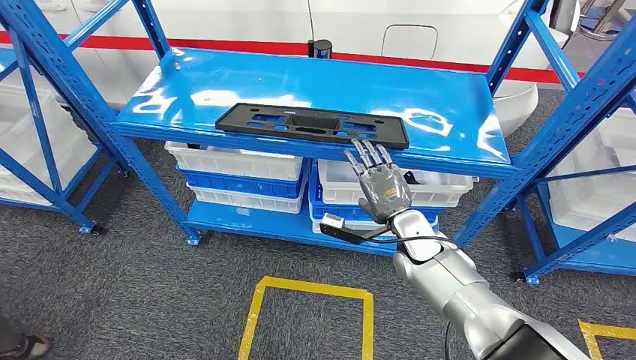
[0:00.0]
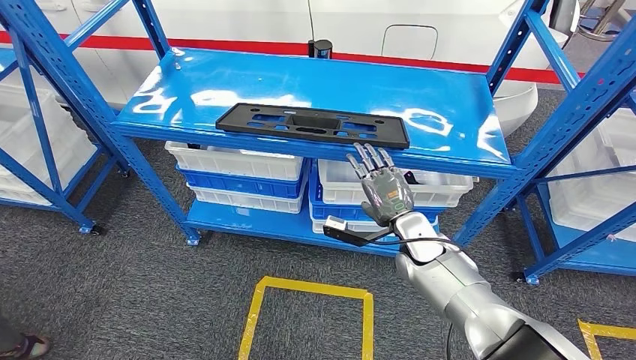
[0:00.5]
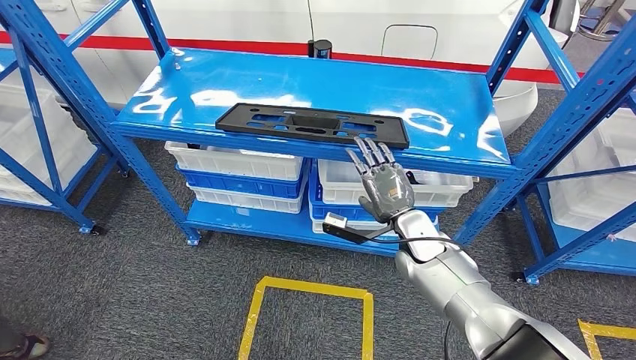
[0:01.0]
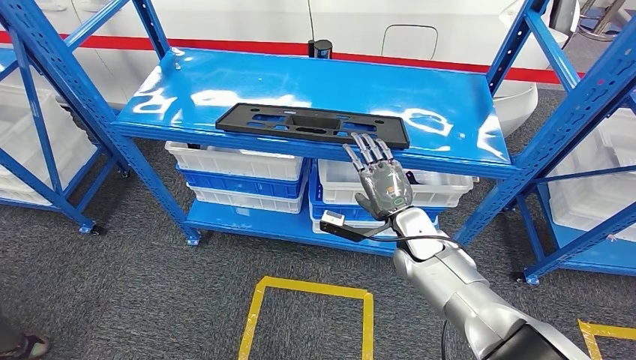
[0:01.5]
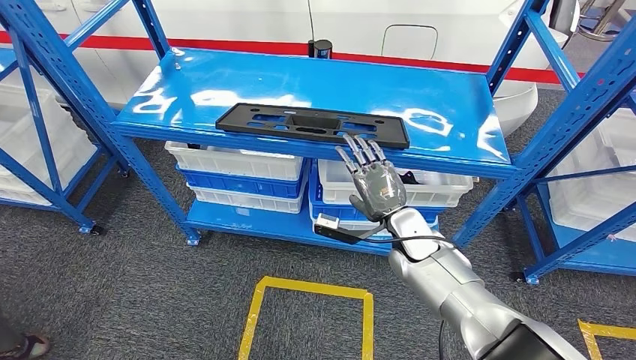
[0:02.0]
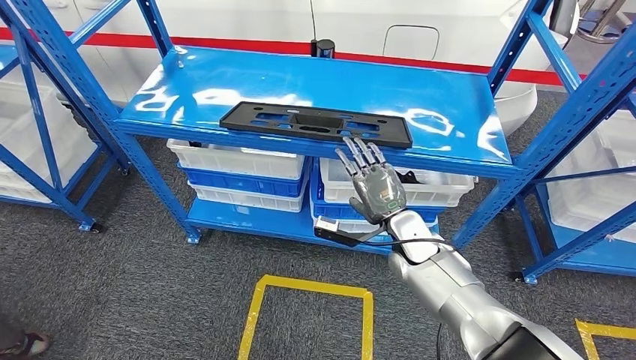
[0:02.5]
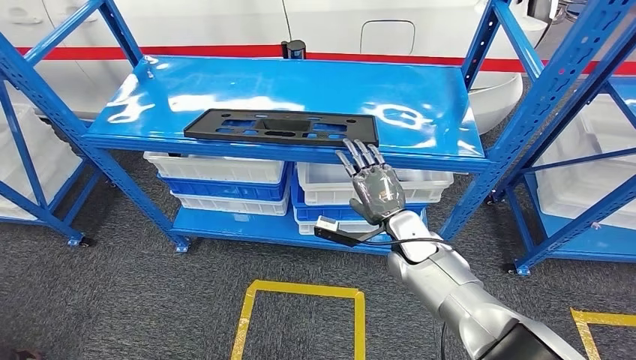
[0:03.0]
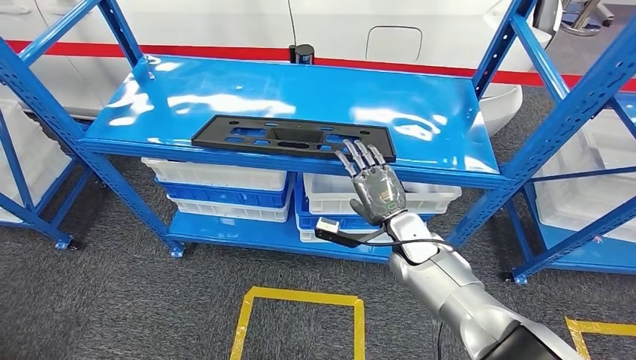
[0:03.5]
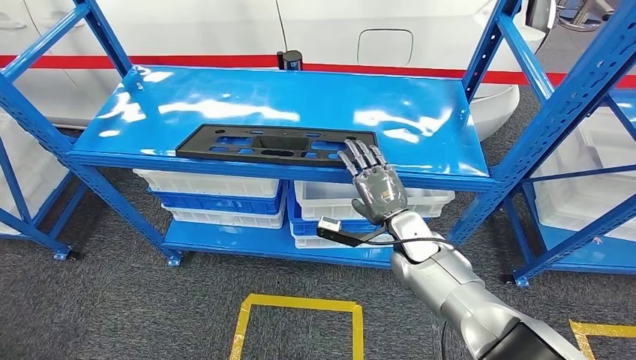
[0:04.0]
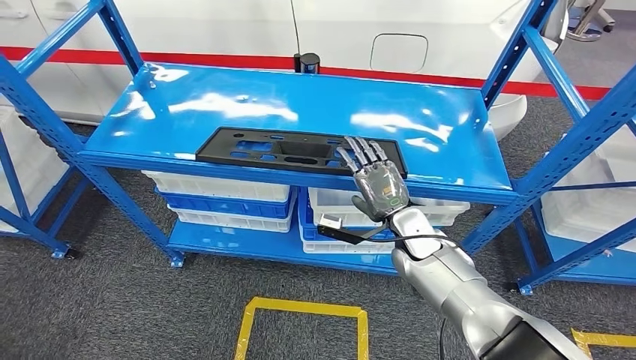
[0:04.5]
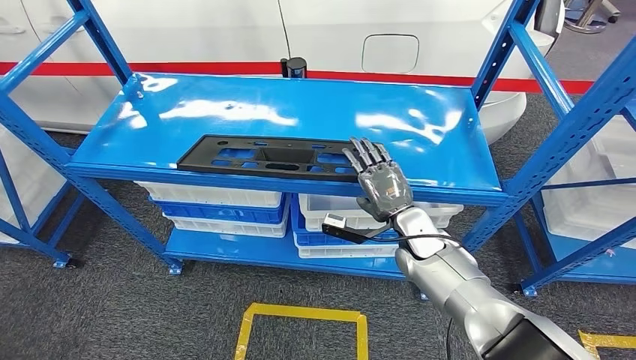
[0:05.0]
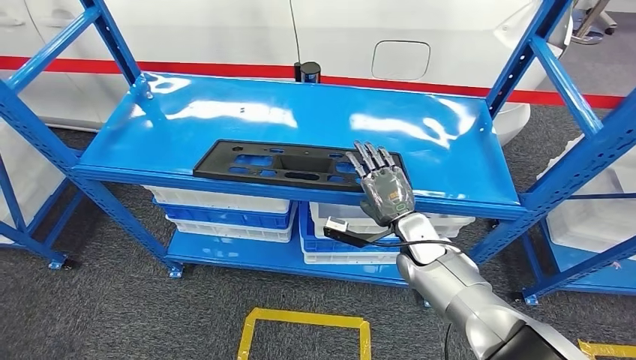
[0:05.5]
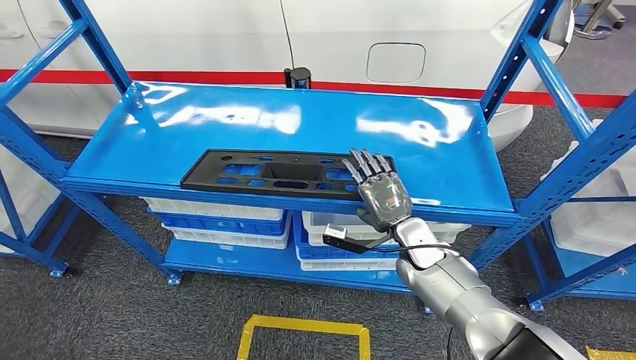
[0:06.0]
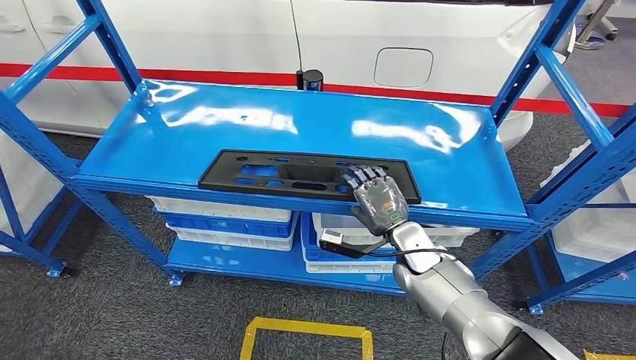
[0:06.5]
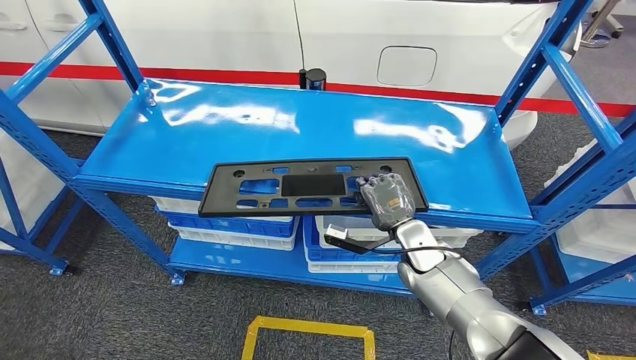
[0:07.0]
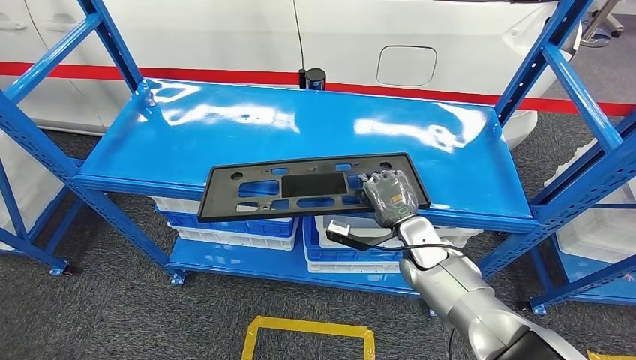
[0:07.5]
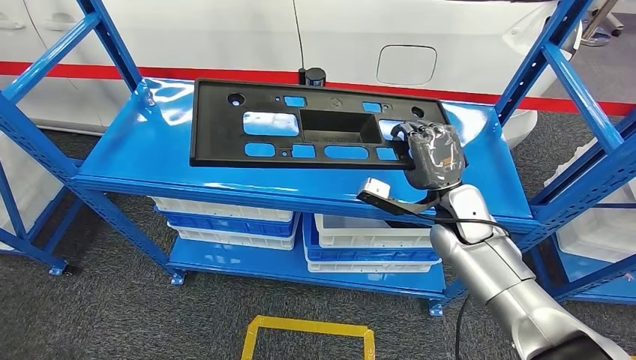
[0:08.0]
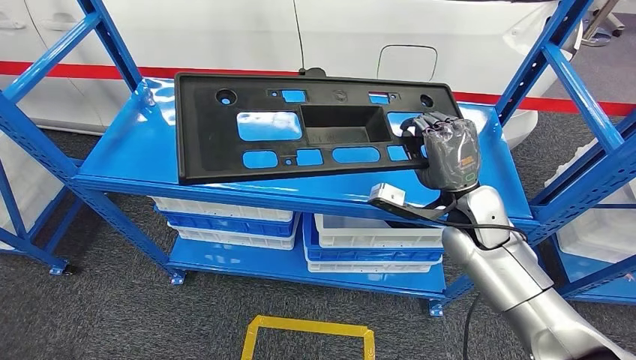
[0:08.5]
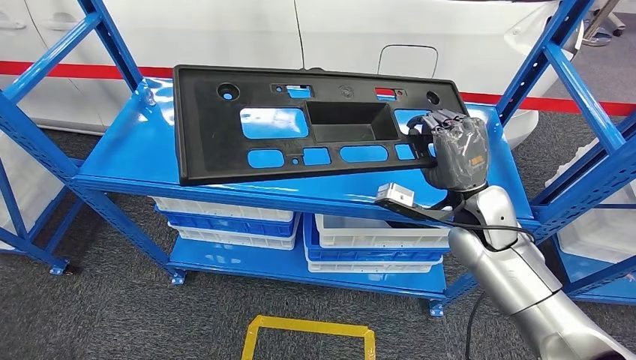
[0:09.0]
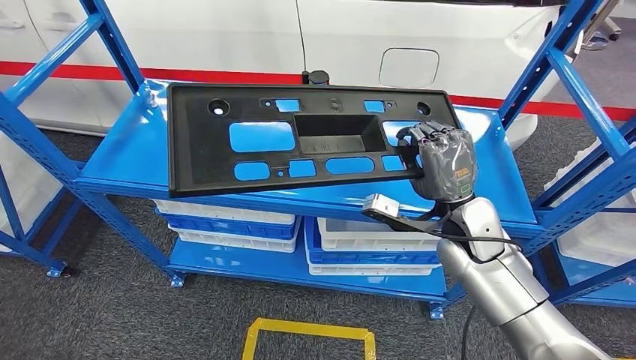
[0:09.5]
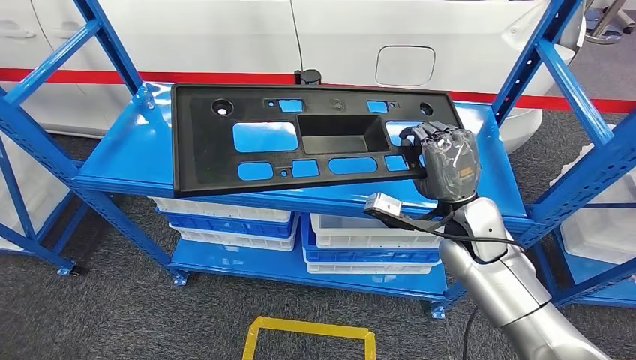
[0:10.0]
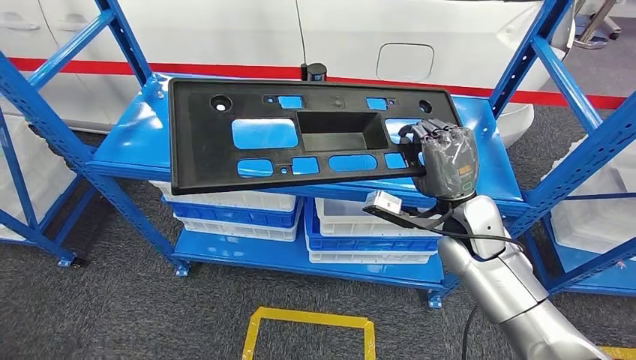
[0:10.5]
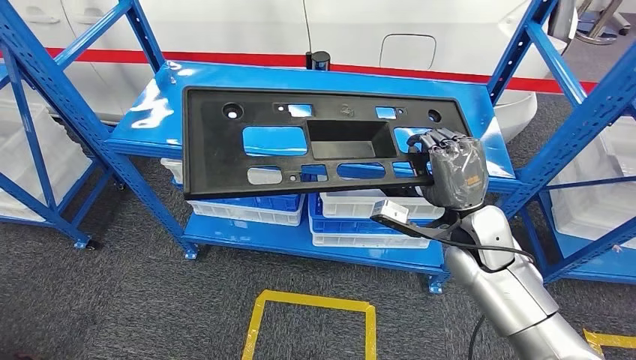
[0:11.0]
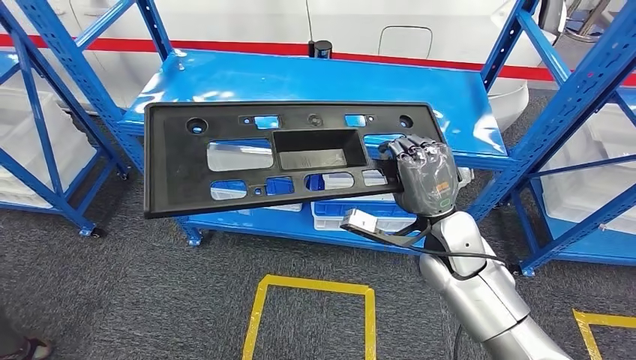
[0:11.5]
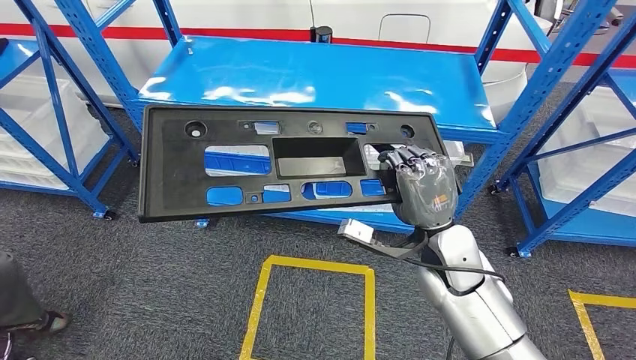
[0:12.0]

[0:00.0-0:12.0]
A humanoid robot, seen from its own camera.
Step, 0:00.0 to 0:08.5: Pick up the large material from the shelf.

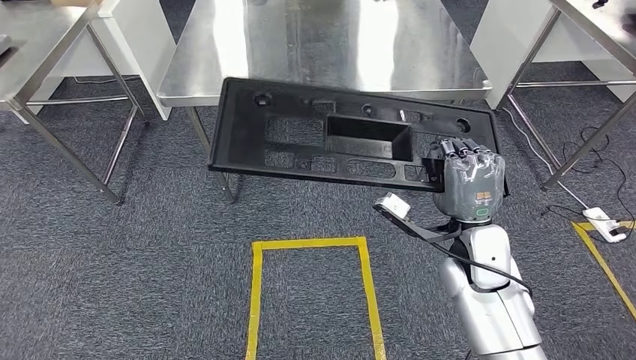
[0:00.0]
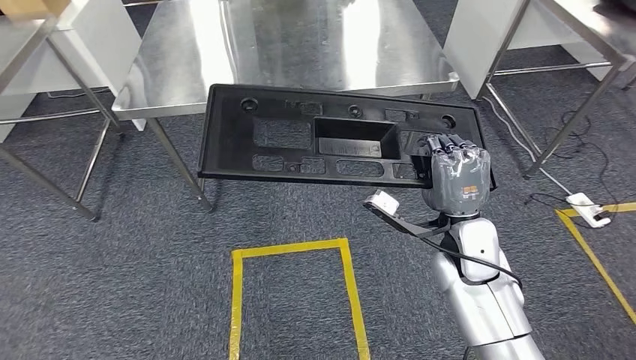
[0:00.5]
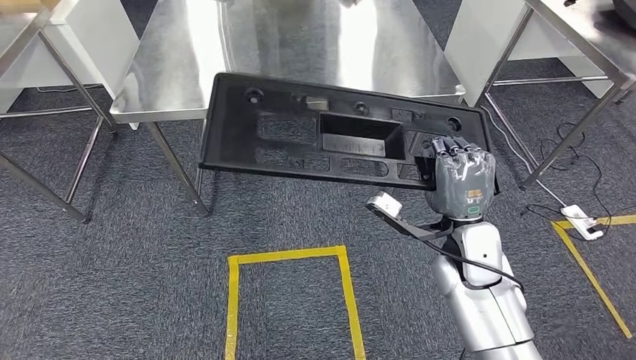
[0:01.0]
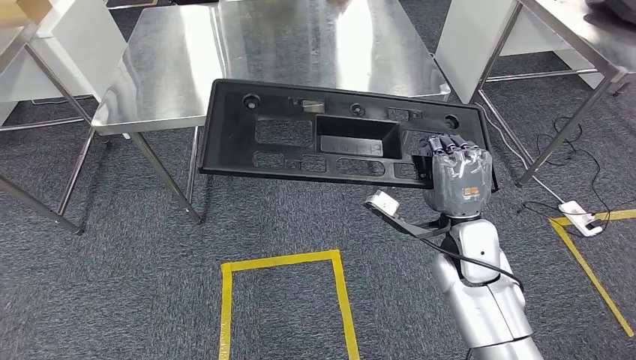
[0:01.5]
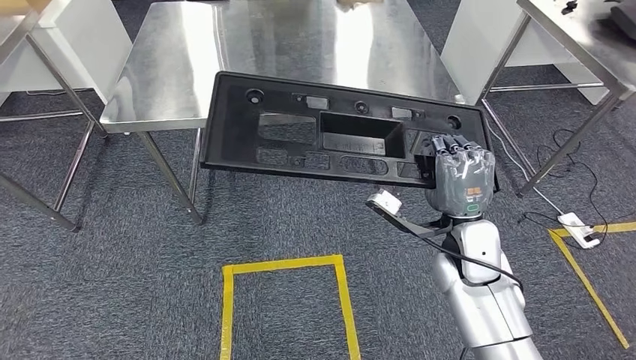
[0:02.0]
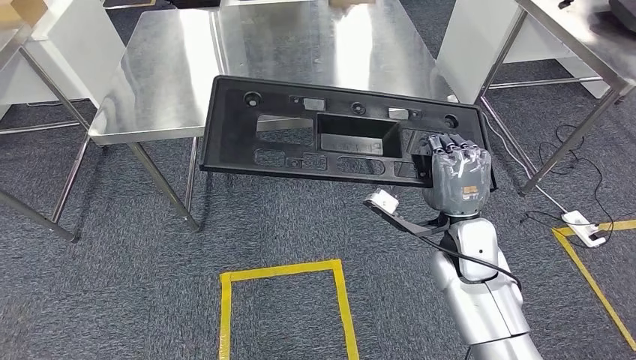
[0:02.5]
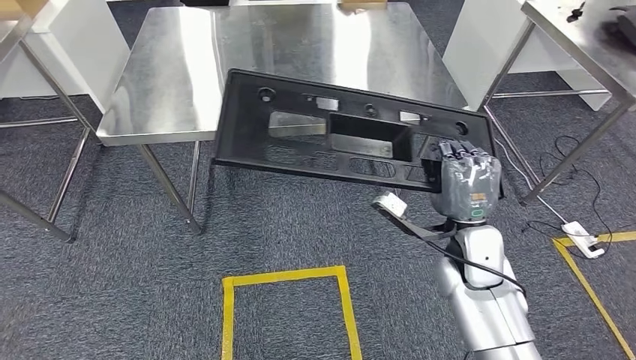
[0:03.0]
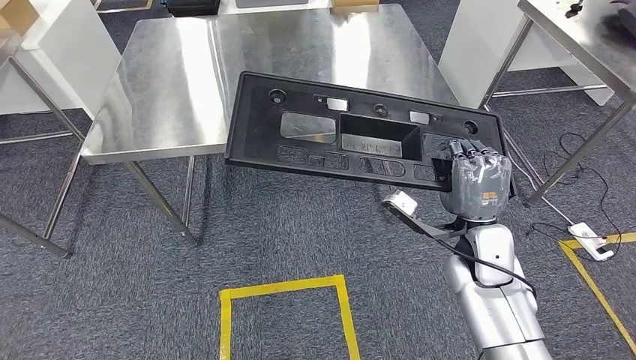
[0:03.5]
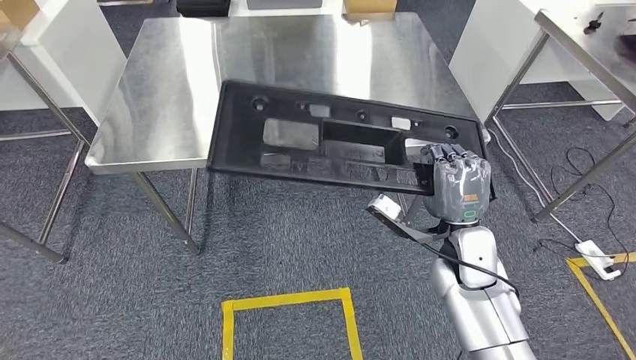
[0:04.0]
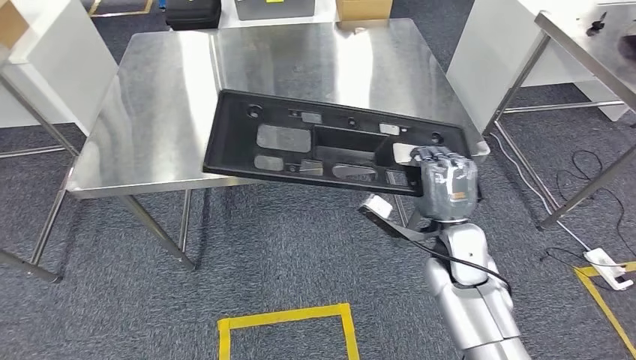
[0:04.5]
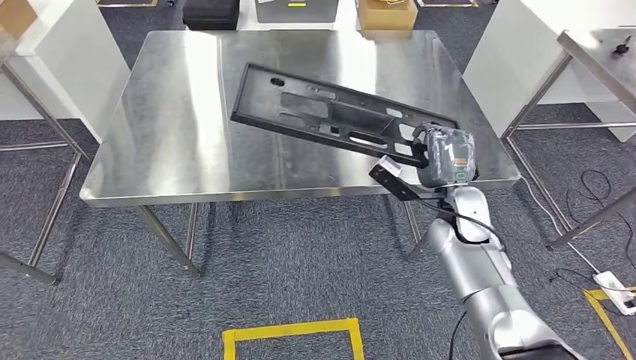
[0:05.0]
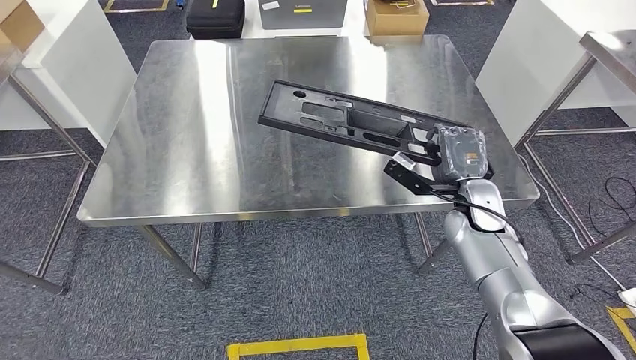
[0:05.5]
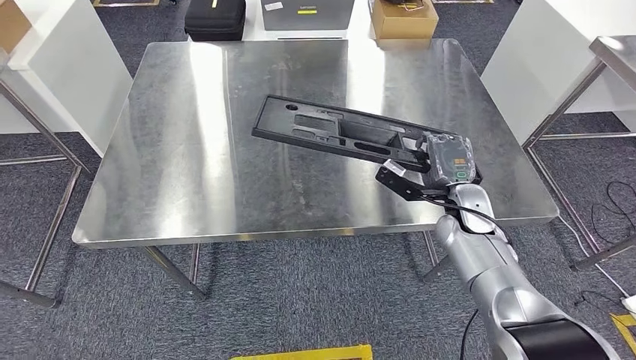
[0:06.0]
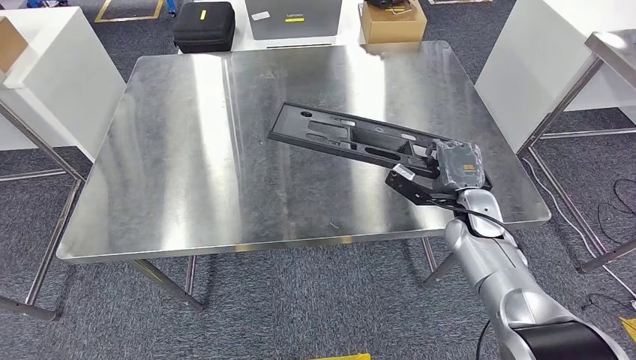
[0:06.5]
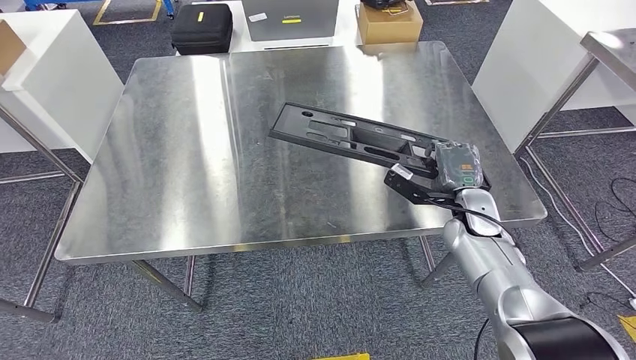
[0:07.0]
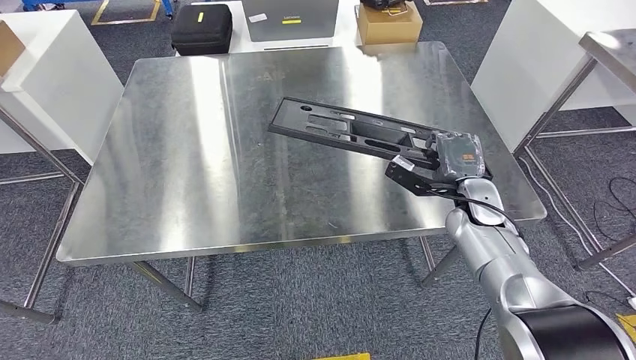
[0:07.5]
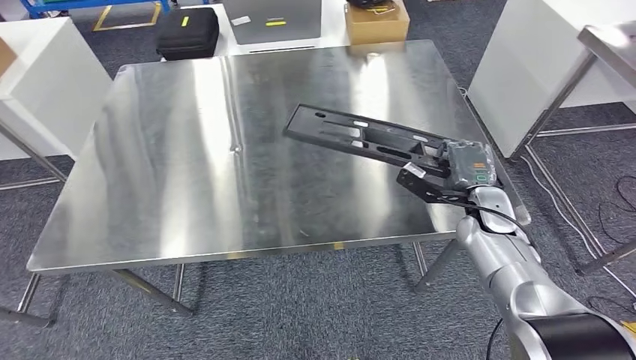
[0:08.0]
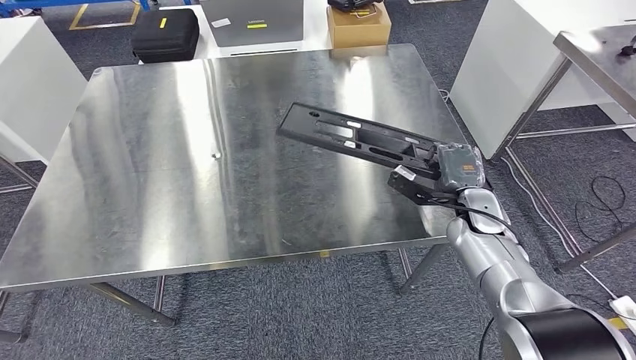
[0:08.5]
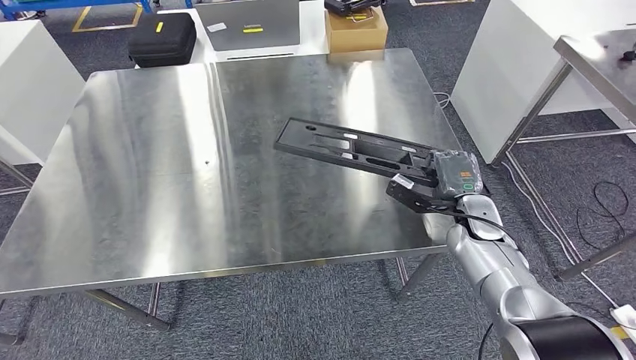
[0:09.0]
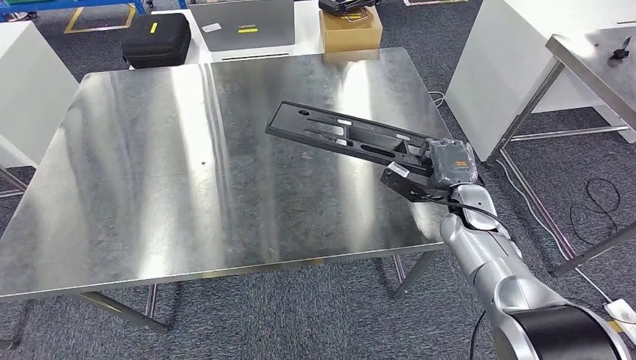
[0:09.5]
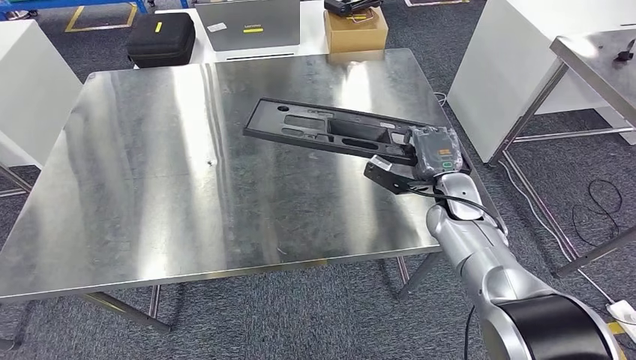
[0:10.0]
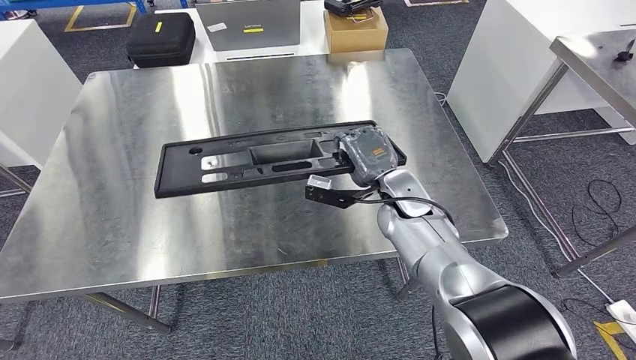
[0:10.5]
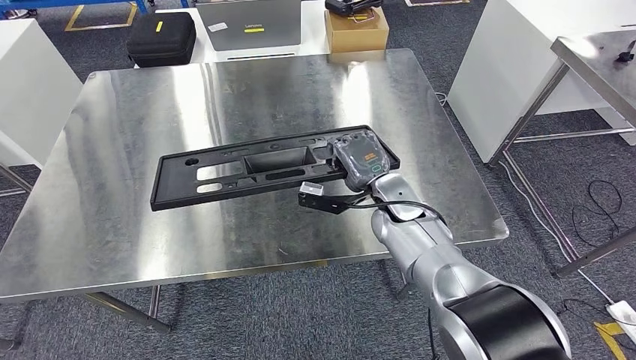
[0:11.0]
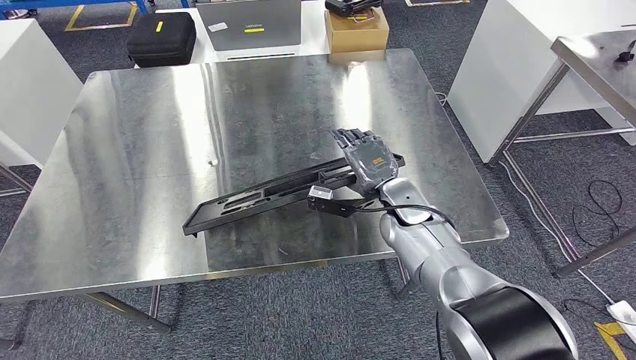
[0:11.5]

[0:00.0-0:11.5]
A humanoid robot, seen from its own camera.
Step, 0:00.0 to 0:04.0: Move the large material to the front of the workbench.
